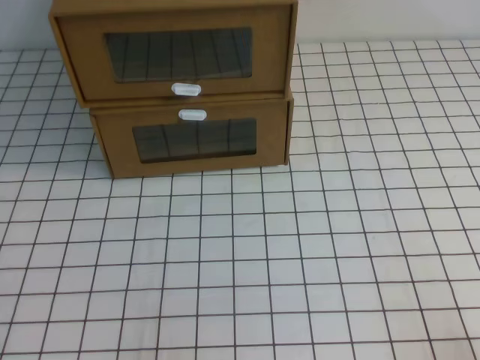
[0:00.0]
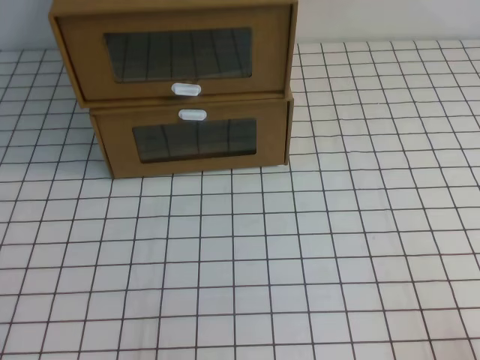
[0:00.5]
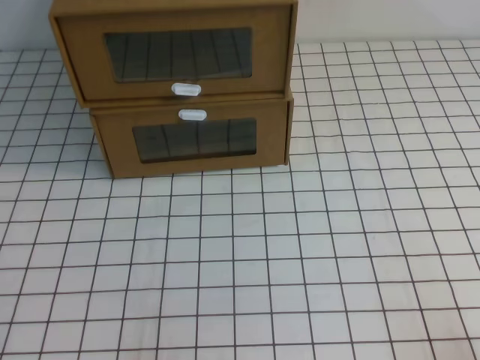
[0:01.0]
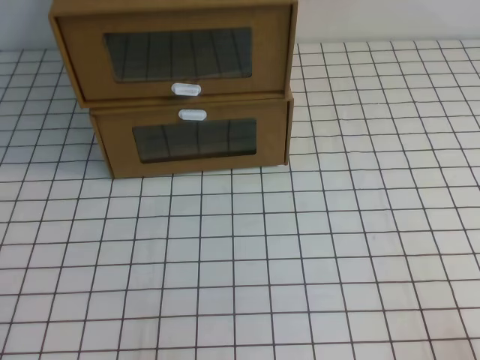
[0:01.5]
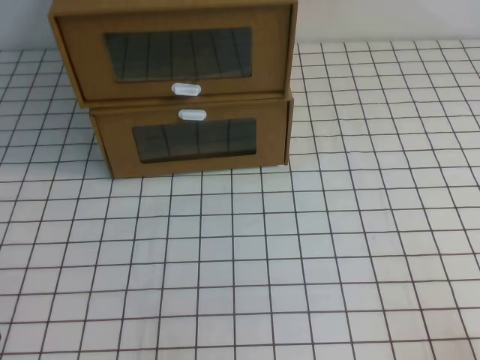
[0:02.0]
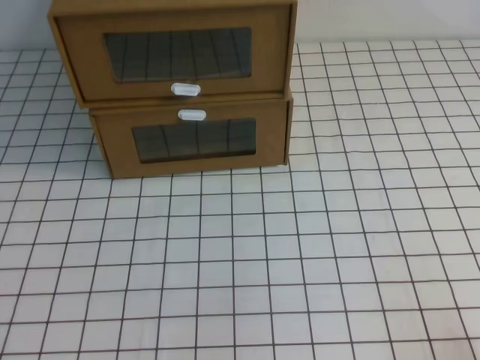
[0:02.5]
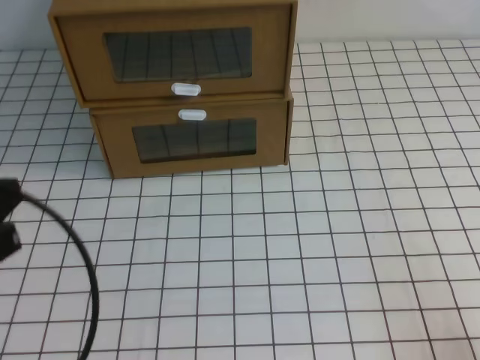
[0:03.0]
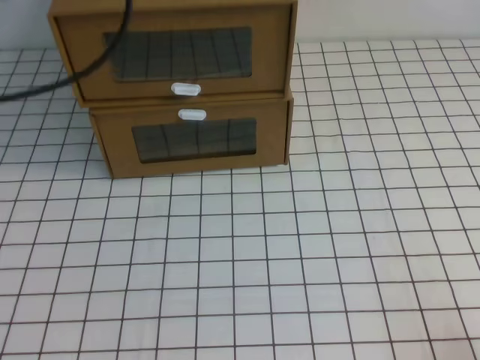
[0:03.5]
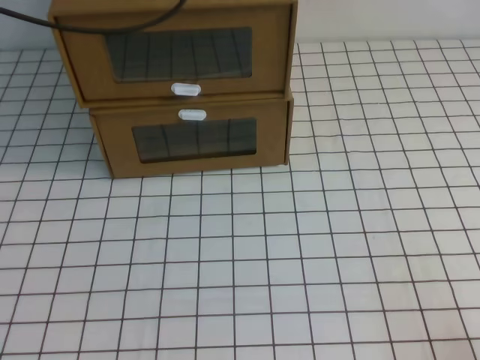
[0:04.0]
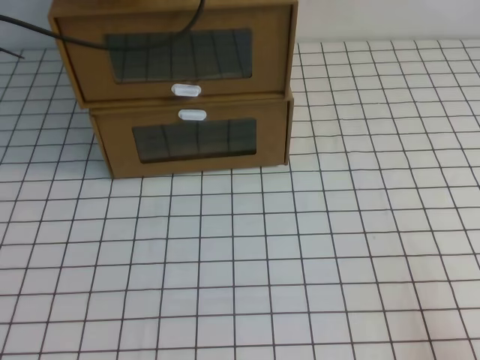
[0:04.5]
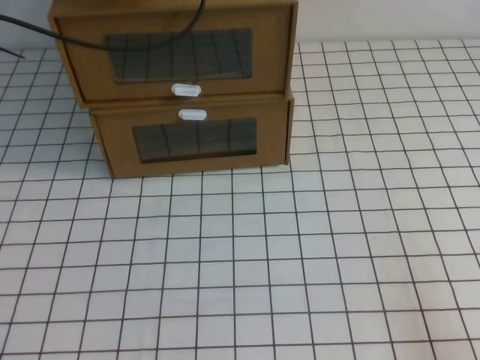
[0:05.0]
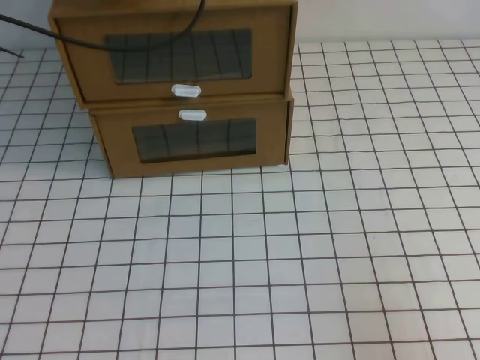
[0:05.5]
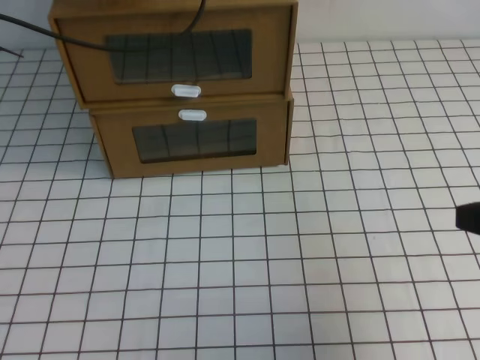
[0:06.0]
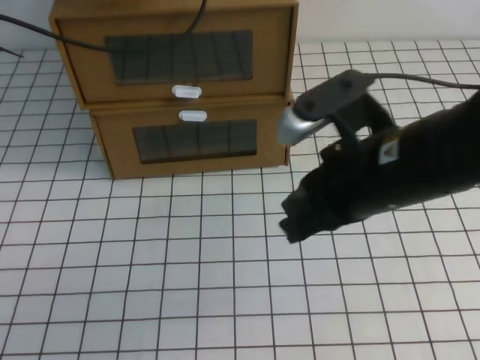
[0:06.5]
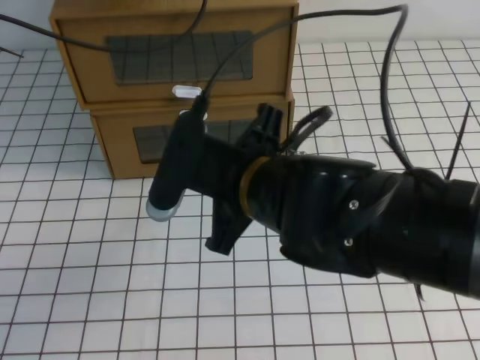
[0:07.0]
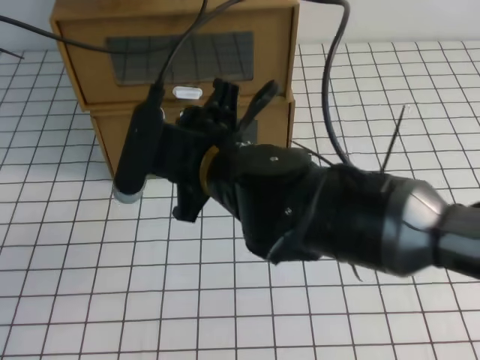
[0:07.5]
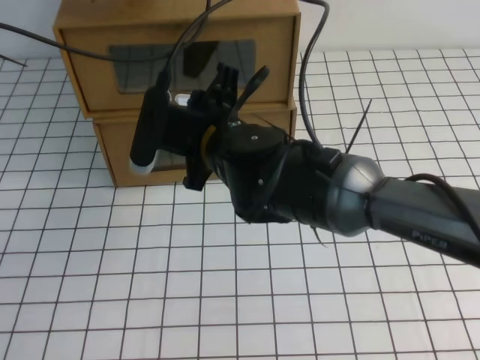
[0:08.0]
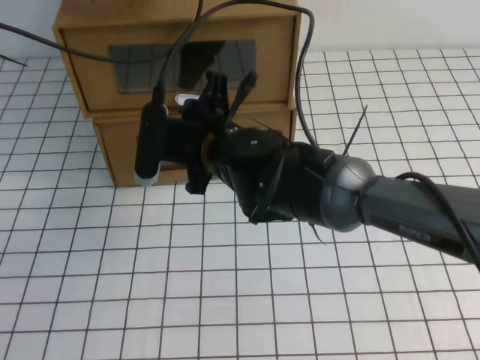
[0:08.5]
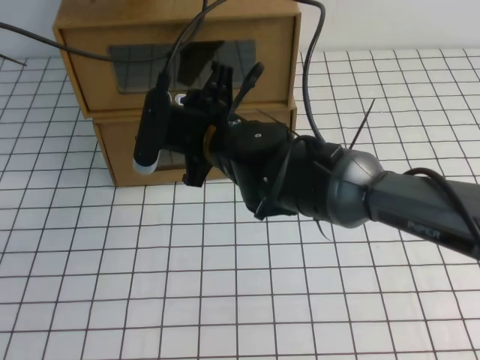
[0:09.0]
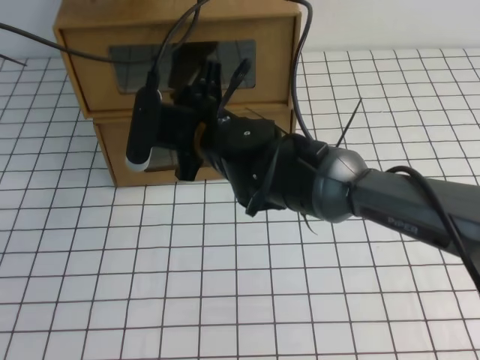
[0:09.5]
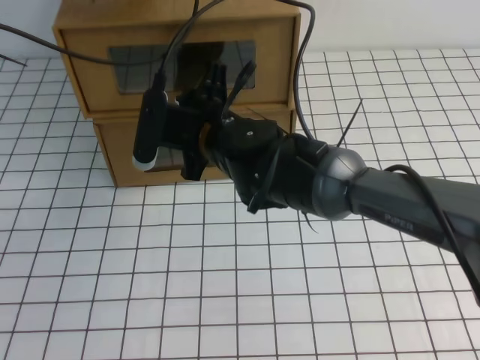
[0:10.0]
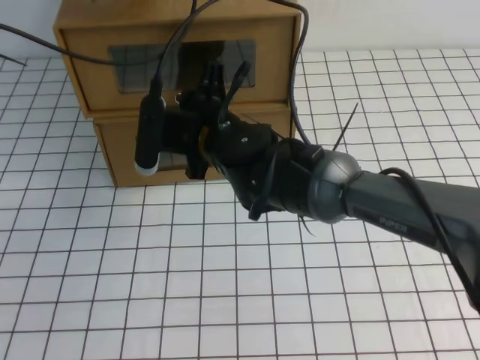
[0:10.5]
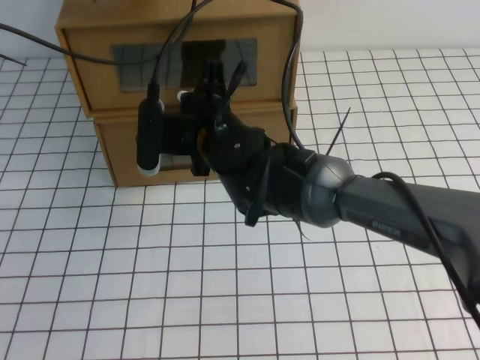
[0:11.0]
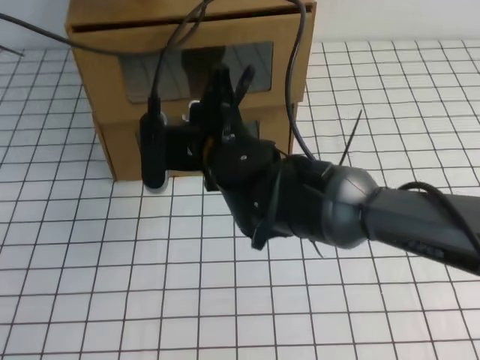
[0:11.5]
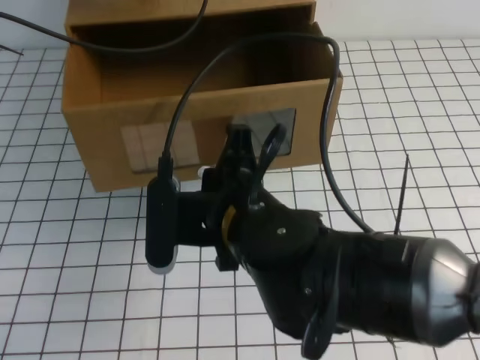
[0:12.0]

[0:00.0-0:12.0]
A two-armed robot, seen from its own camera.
Task of the whole recording: open the shoebox on the white tablecloth.
0:04.0 to 0:06.0: The right gripper is displaced upward, forward and to the left by roughly 20 cm; the left gripper ends up approximately 5 cm from where it was.
0:06.0 to 0:08.0: The right gripper shifts some 35 cm to the left and forward, and opens up.
0:08.0 to 0:10.0: The grippers move only a little.
0:10.0 to 0:12.0: The right gripper travels backward by roughly 15 cm, and closes its fingers.

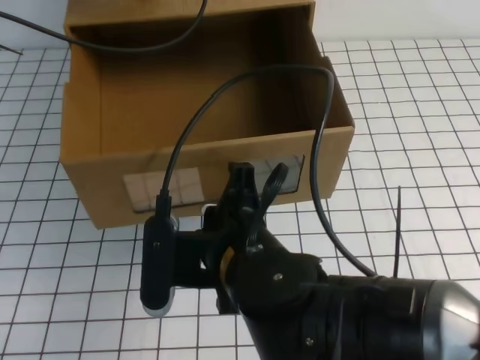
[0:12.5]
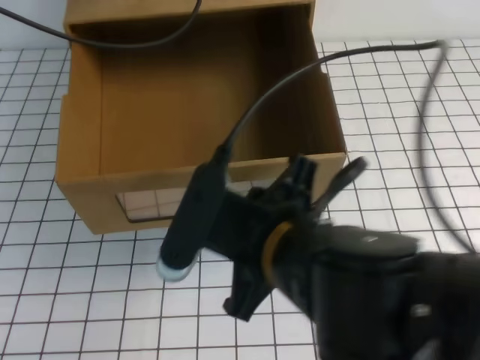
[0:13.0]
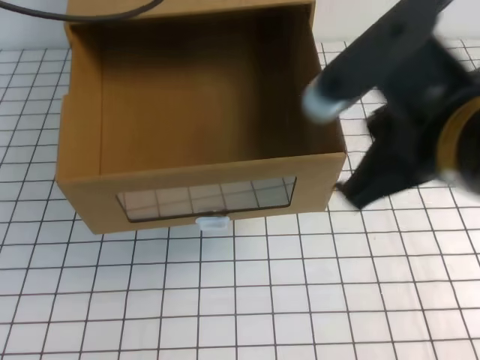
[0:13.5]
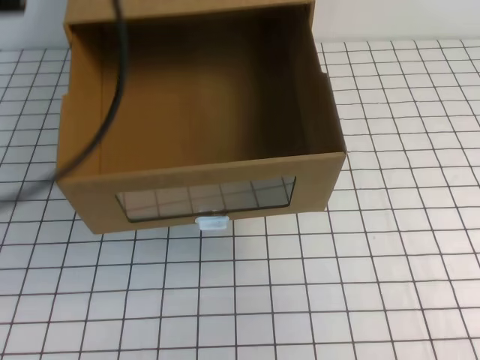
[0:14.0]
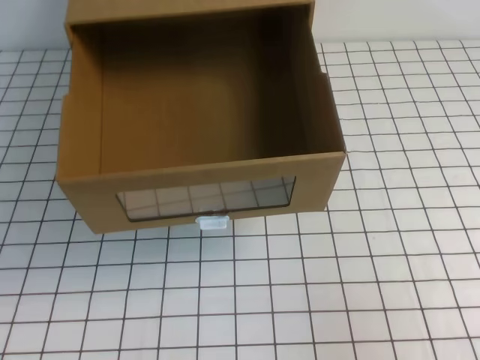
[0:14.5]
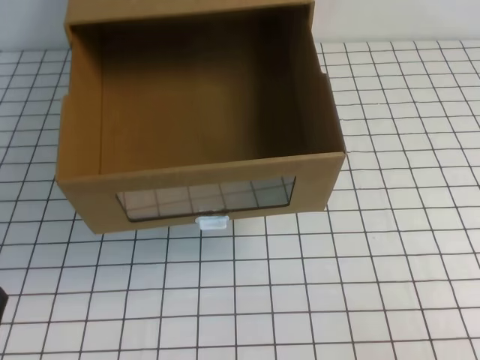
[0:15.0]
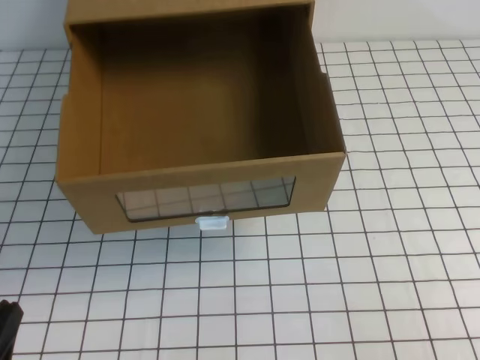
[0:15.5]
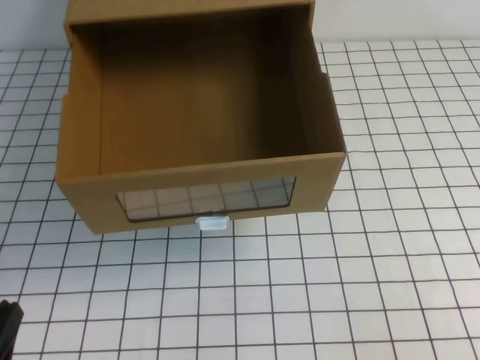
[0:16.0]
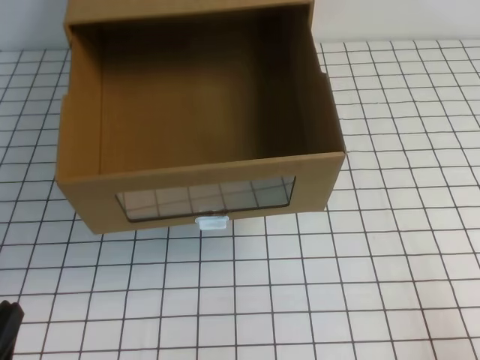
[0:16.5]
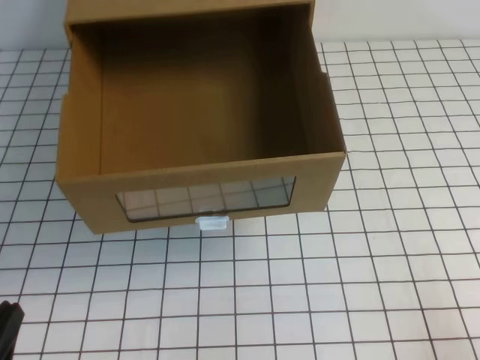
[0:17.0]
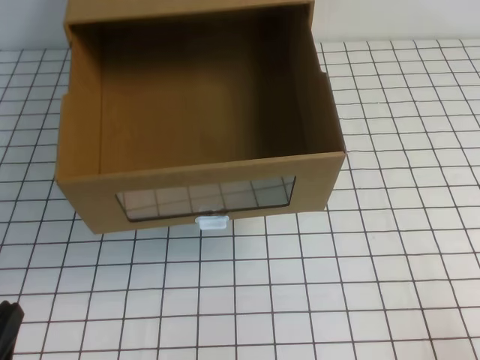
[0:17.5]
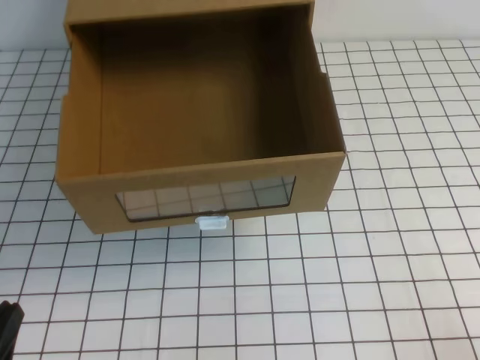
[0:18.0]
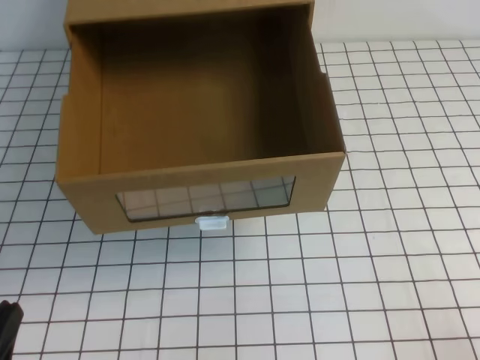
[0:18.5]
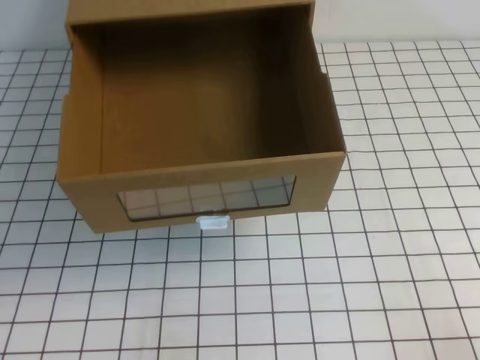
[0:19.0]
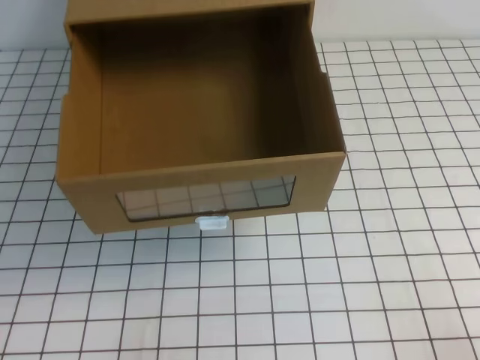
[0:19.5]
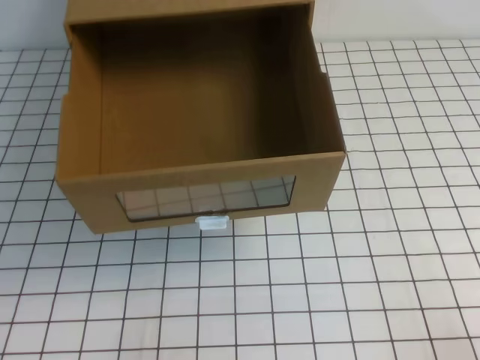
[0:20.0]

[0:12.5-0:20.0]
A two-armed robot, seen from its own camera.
Task of the whole recording: open the shoebox on the white tablecloth.
Step, 0:12.5 to 0:20.0: Open the shoe box.
0:12.5 to 0:14.5: The right gripper travels to the right by roughly 30 cm, and opens and closes again, while the left gripper goes roughly 40 cm backward.
0:14.5 to 0:16.5: Both grippers travel together downward, roughly 15 cm.
